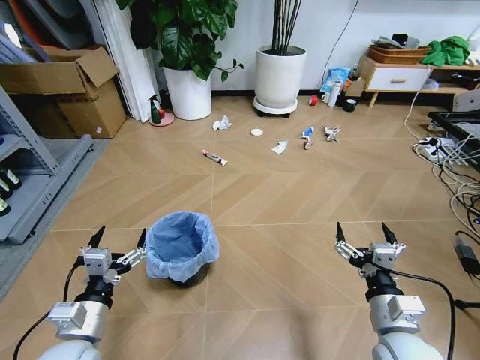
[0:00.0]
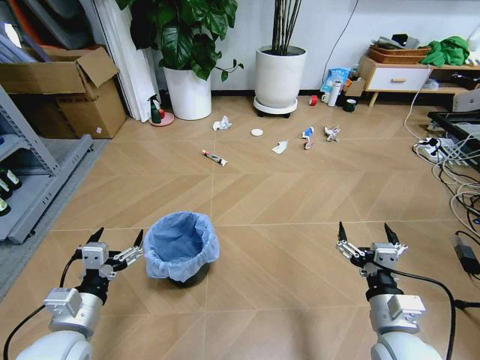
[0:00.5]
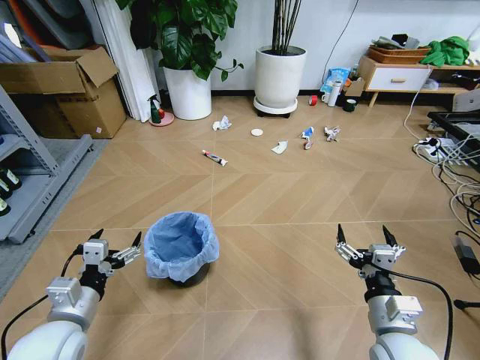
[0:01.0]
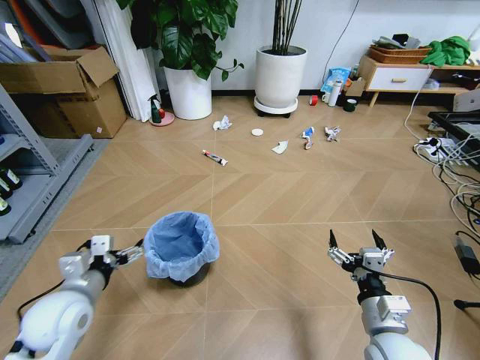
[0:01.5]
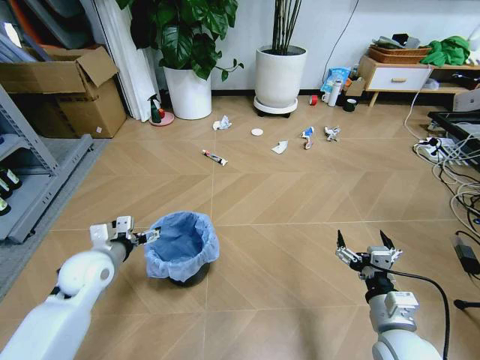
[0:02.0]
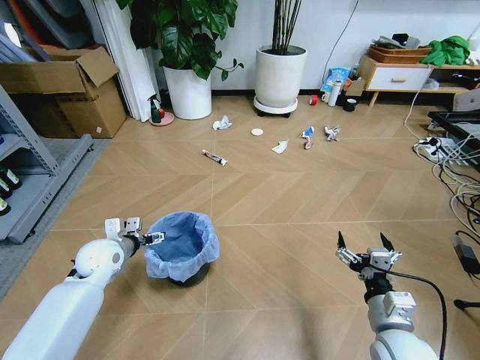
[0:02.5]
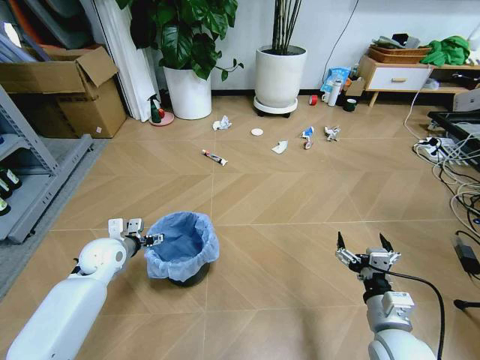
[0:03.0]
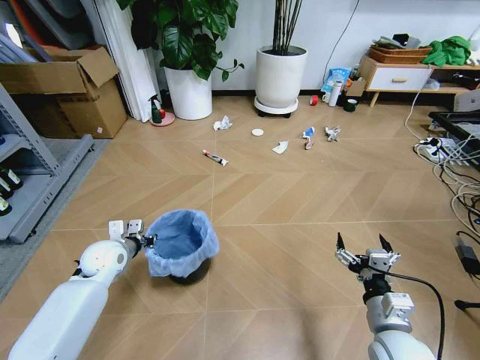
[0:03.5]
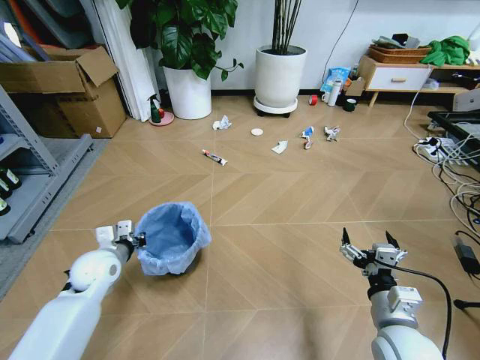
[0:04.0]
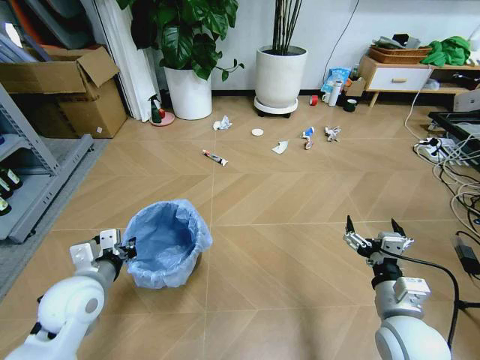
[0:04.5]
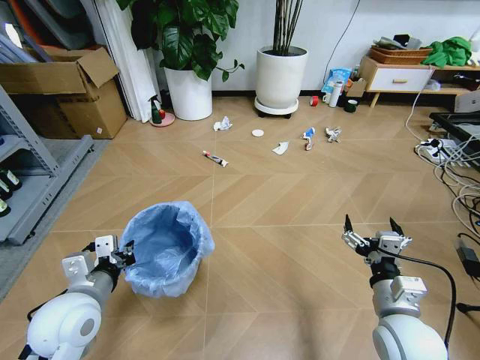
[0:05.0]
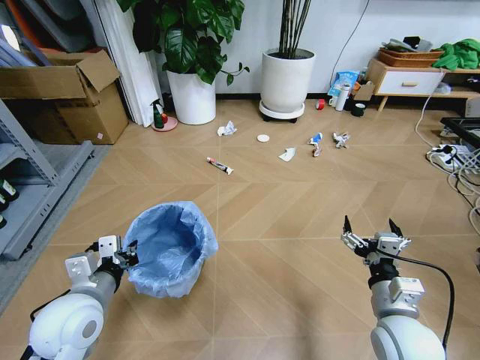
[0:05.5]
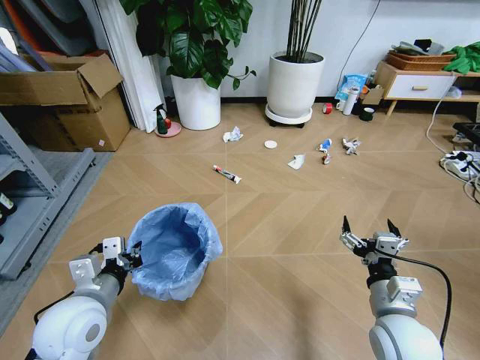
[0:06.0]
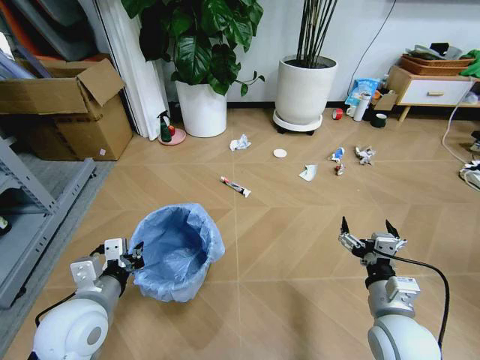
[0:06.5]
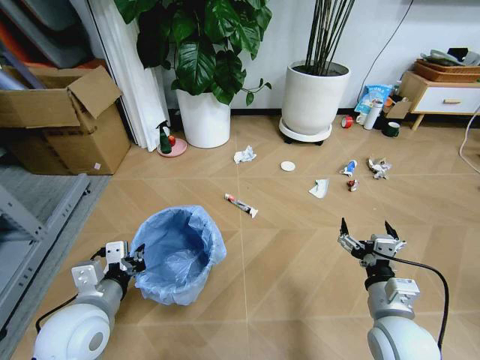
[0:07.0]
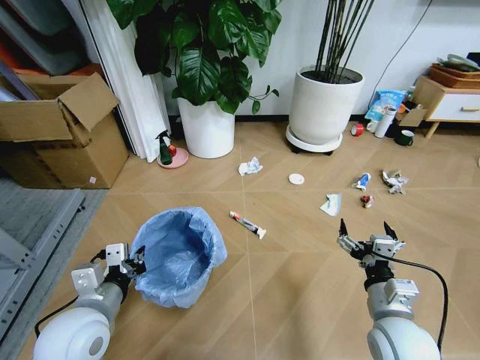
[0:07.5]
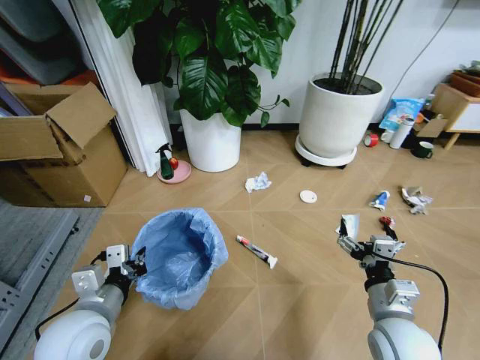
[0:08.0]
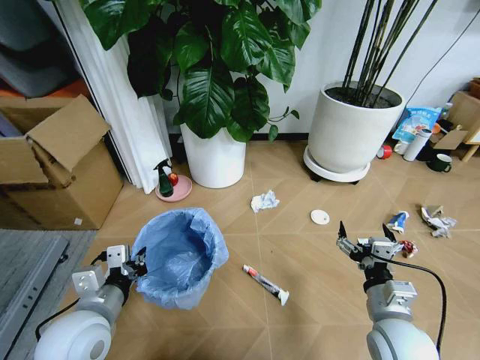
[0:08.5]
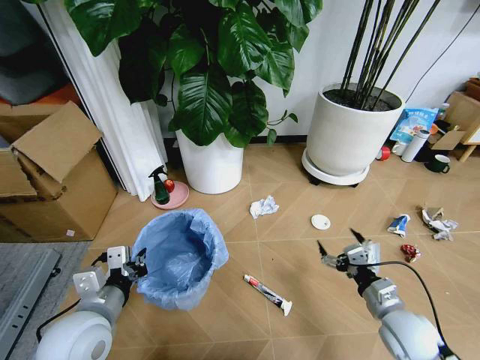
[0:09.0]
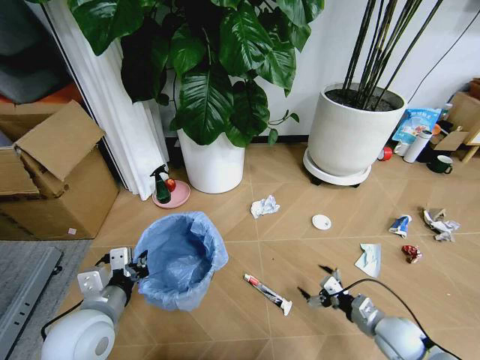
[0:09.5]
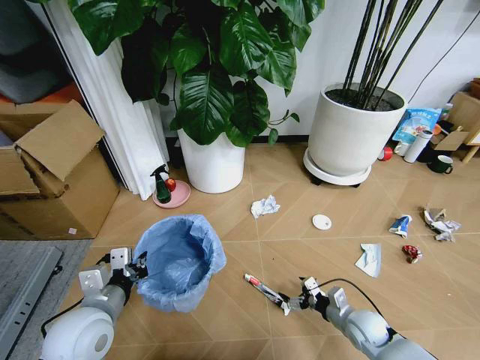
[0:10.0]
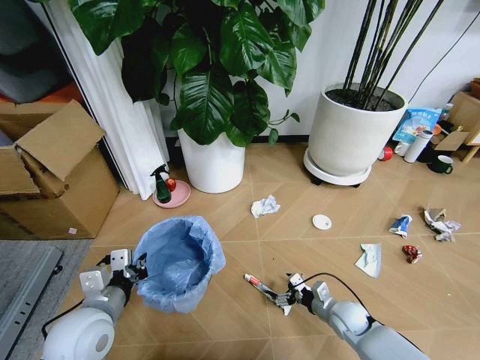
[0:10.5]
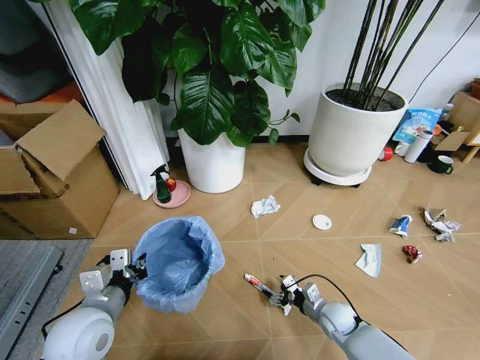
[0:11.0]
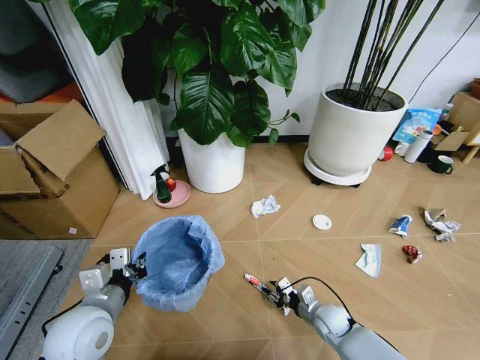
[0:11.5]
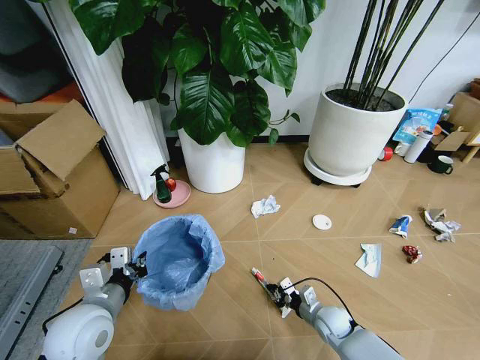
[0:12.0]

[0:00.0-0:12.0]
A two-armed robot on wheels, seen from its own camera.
Task of the whole recording: Pick up the trash bin and place the garbage on the floor into it.
0:02.0 to 0:04.0: The left gripper closes up.
0:04.0 to 0:06.0: The left gripper moves backward, upward and to the right, roughly 15 cm.
0:08.0 to 0:10.0: The right gripper travels downward by some 20 cm.
0:10.0 to 0:12.0: The right gripper travels to the left and downward by approximately 10 cm, and closes up.

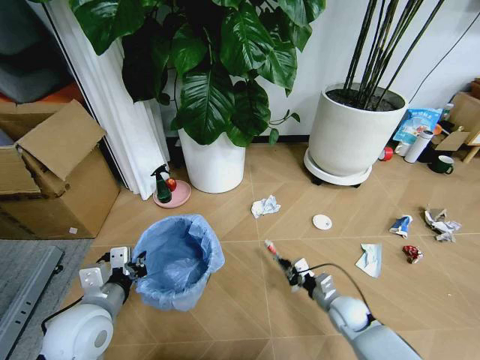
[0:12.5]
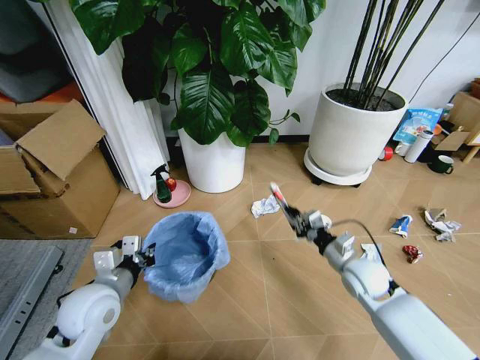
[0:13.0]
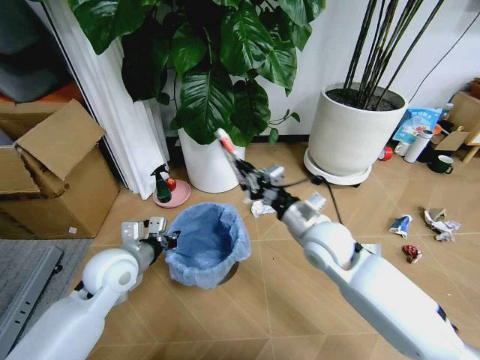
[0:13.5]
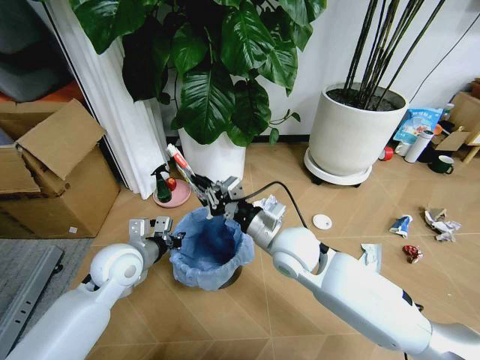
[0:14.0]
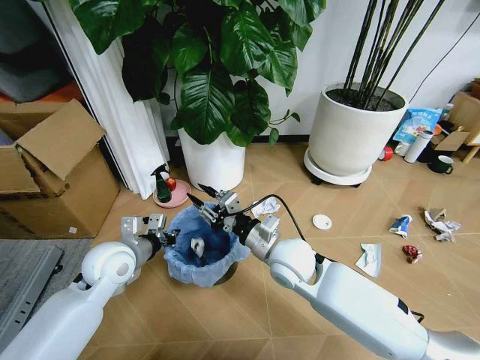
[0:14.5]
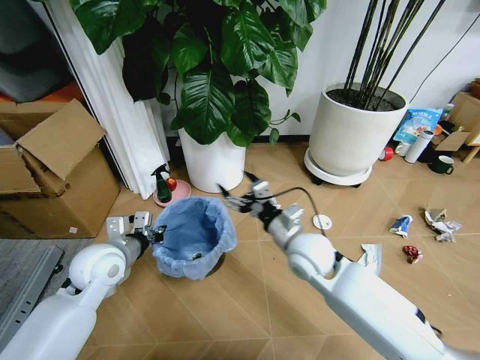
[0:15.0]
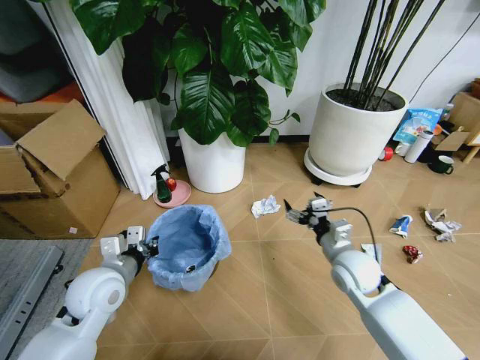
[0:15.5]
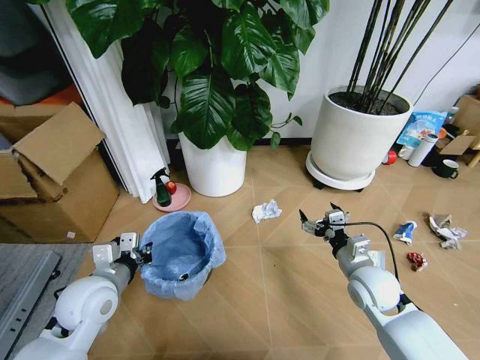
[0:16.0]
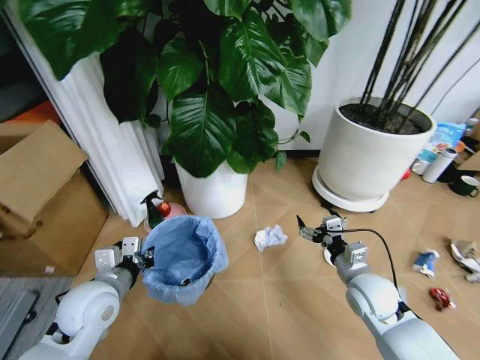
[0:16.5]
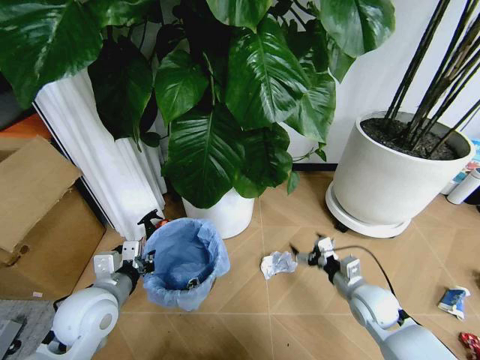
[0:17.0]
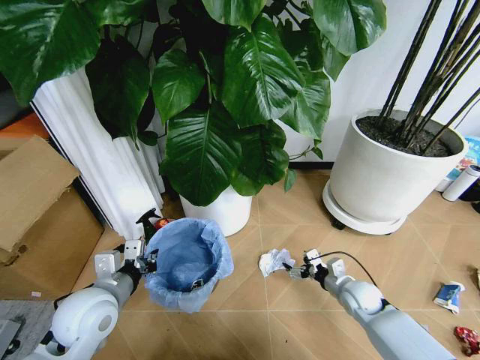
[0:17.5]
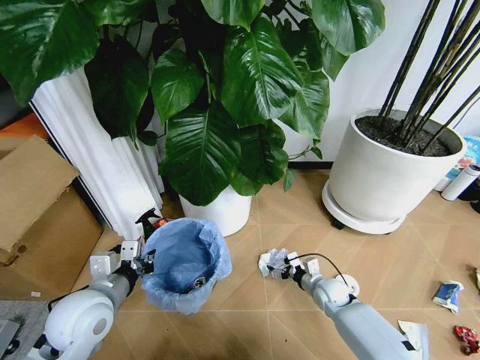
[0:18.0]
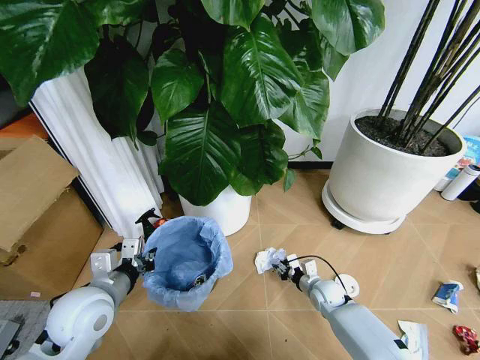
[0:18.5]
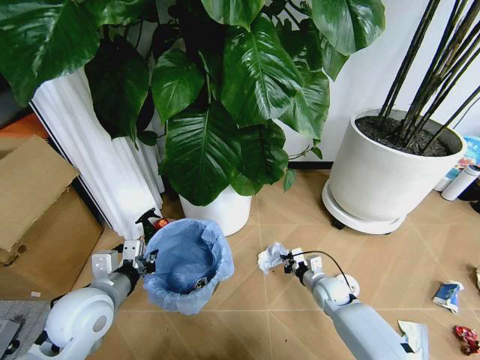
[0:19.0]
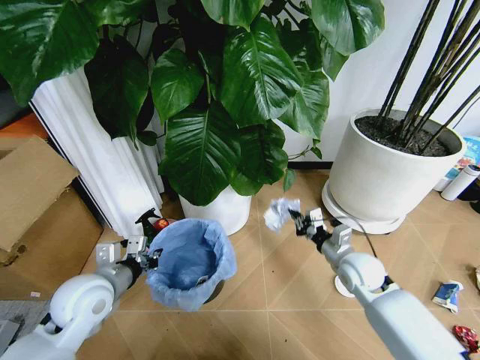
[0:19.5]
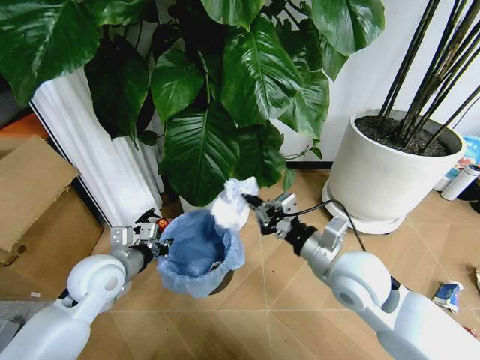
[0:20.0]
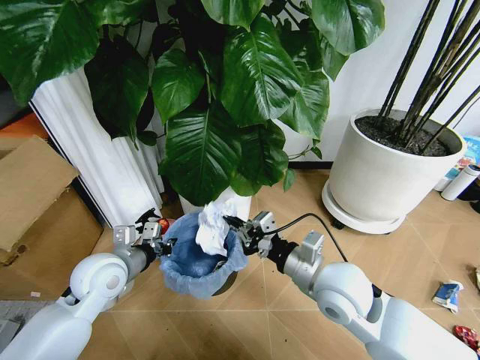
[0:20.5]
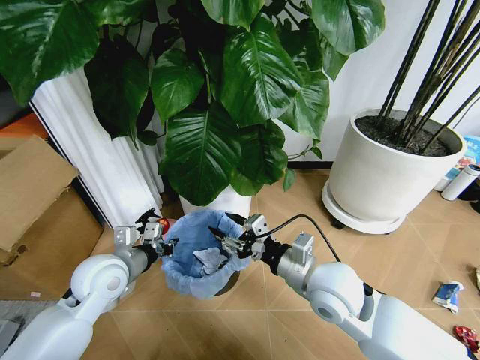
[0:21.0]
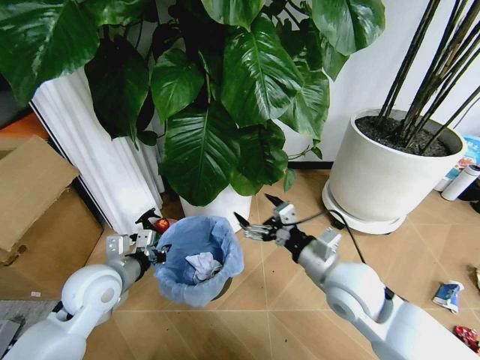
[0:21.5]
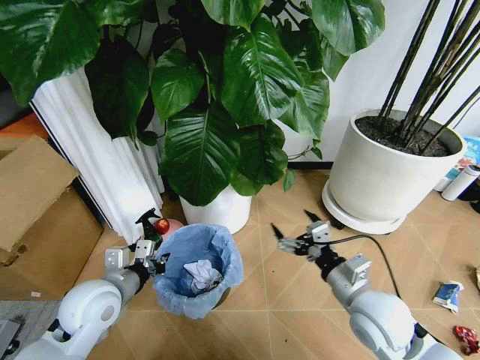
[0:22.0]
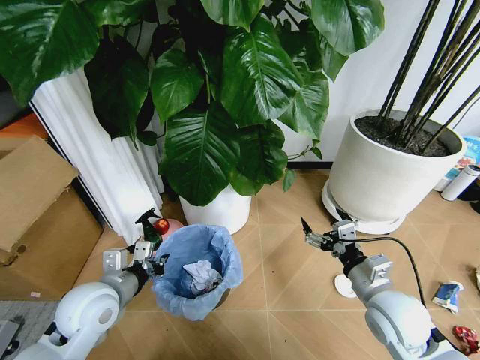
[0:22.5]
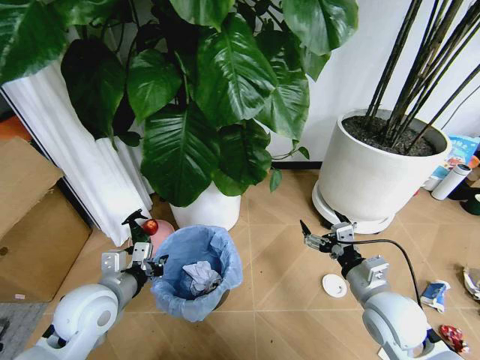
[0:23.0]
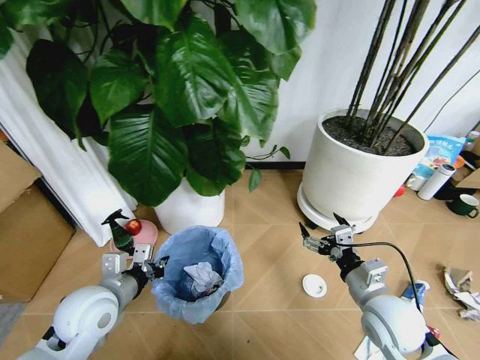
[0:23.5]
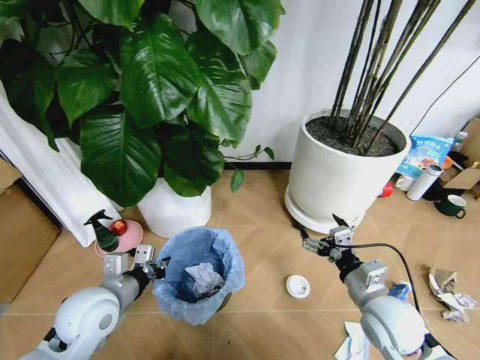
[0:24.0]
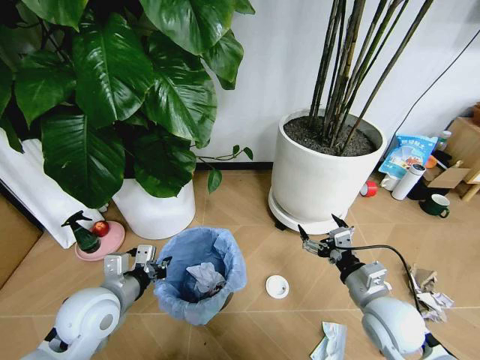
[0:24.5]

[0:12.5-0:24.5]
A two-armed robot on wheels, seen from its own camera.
Task of the whole recording: Pick up the trash bin and place the garbage on the floor into it.
0:12.5 to 0:14.5: The right gripper goes some 30 cm upward and to the left. Meanwhile the left gripper travels forward by about 10 cm.
0:14.5 to 0:16.5: The right gripper heads to the right and downward, covering some 20 cm, and opens up, while the left gripper travels backward by approximately 10 cm.
0:16.5 to 0:18.5: The right gripper moves downward, some 20 cm, and closes its fingers.
0:18.5 to 0:20.5: The right gripper heads upward, covering about 30 cm, and closes up. The left gripper heads forward, covering roughly 5 cm.
0:20.5 to 0:22.5: The left gripper heads backward, covering roughly 5 cm; the right gripper goes some 15 cm to the right and downward, and opens up.

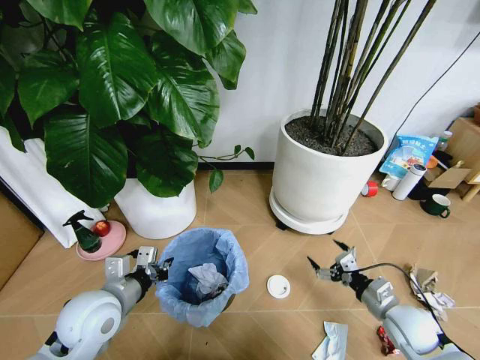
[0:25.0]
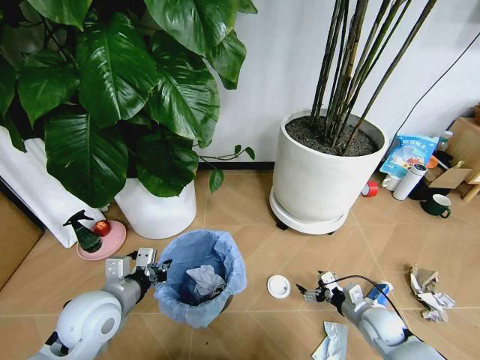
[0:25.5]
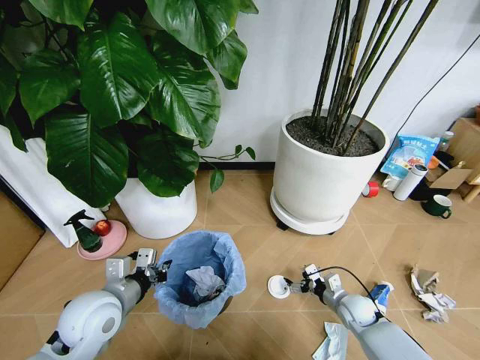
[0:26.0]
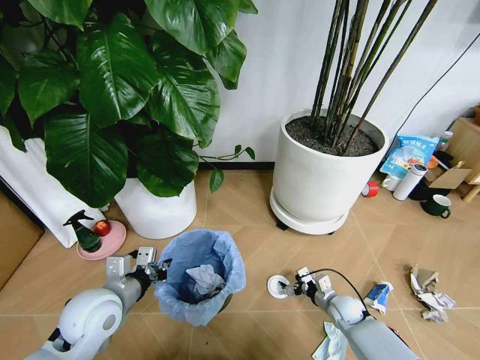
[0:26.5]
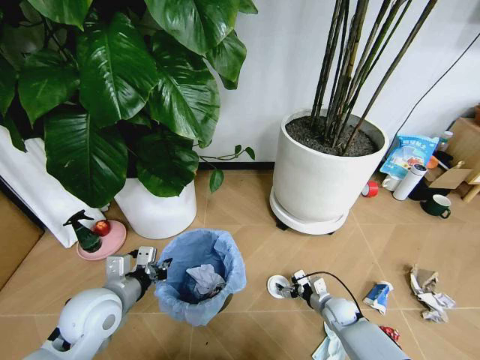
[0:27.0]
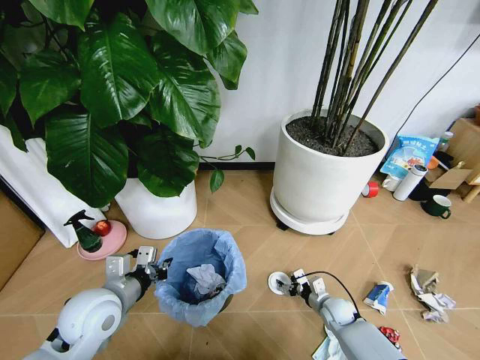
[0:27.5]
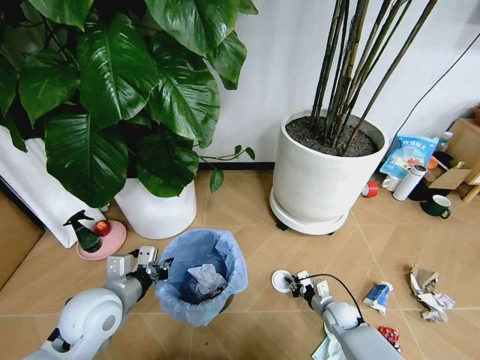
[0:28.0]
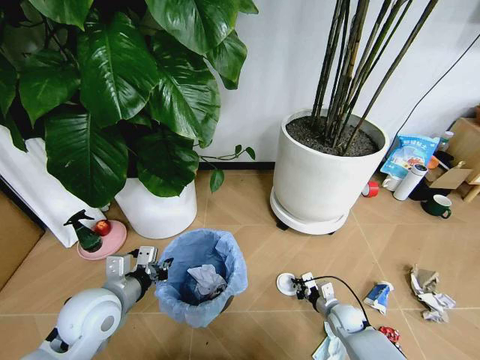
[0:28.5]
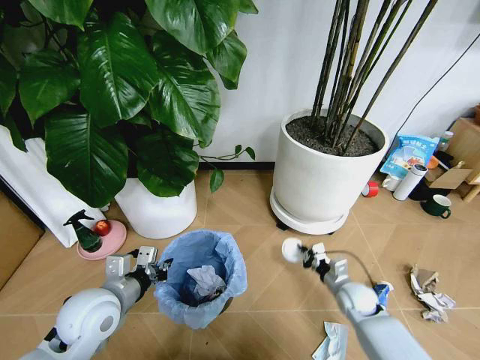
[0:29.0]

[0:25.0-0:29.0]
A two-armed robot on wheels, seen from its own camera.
Task of the whole recording: Pick up the trash bin and place the garbage on the floor into it.
0:25.0 to 0:27.0: The right gripper shifts some 20 cm downward, forward and to the left.
0:27.0 to 0:29.0: The right gripper heads upward, covering approximately 10 cm, and closes up.
